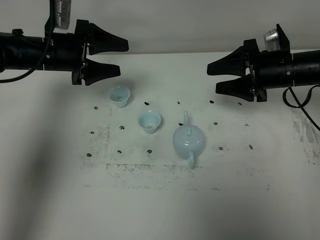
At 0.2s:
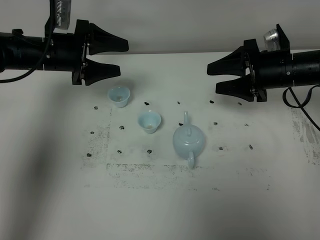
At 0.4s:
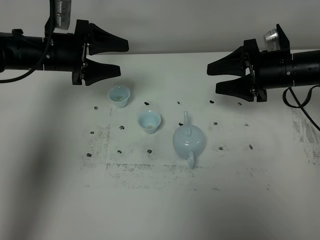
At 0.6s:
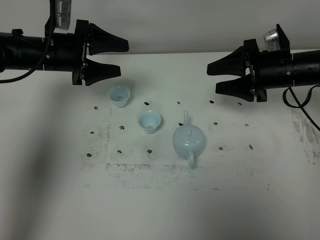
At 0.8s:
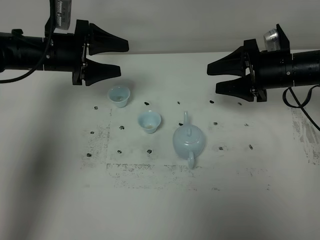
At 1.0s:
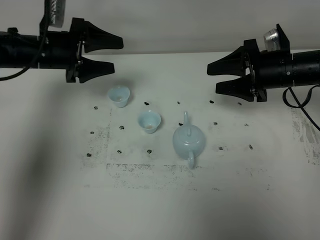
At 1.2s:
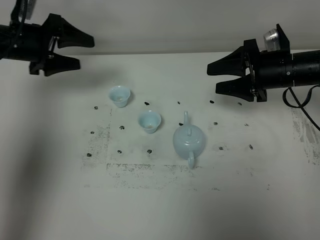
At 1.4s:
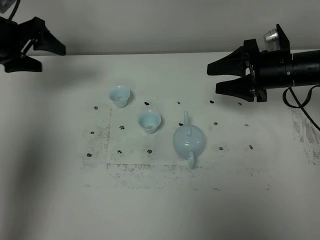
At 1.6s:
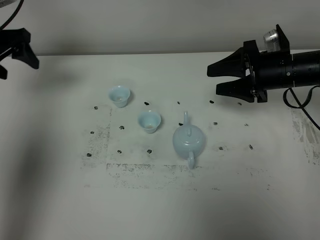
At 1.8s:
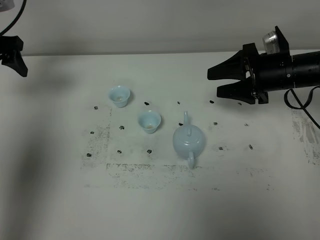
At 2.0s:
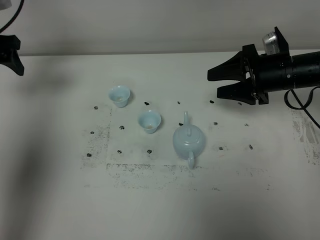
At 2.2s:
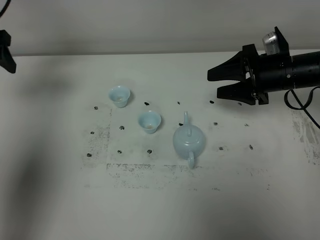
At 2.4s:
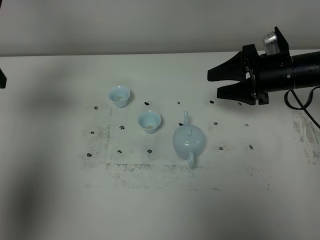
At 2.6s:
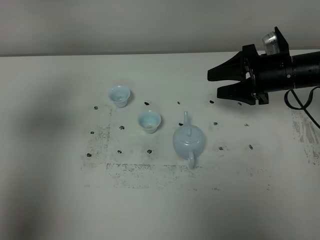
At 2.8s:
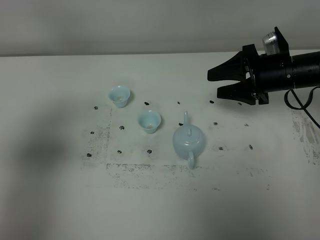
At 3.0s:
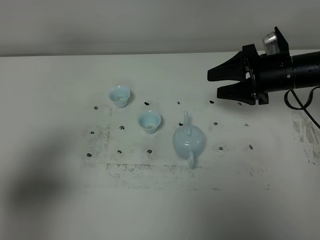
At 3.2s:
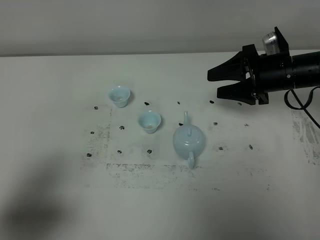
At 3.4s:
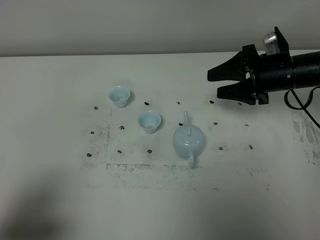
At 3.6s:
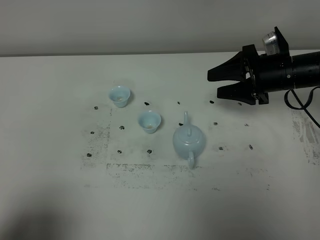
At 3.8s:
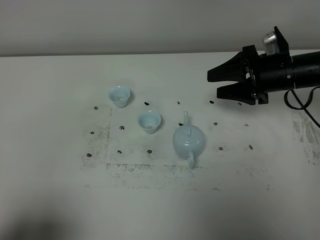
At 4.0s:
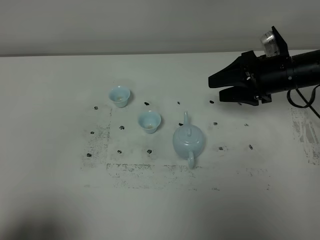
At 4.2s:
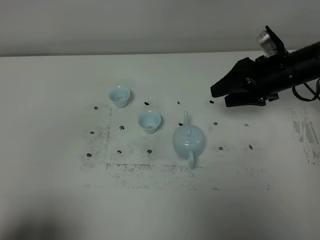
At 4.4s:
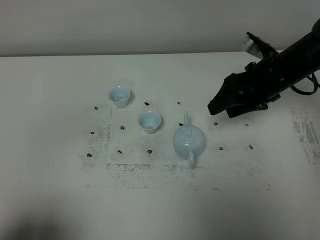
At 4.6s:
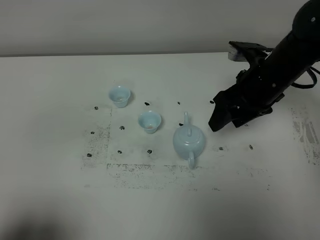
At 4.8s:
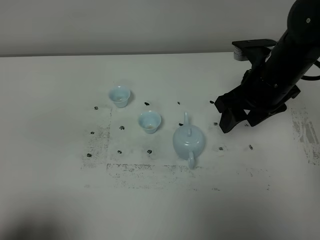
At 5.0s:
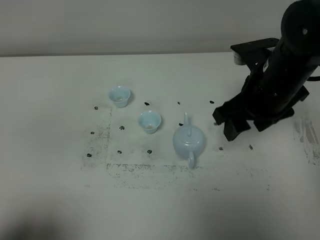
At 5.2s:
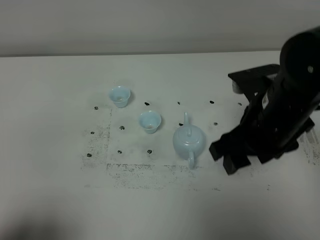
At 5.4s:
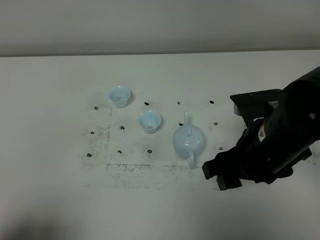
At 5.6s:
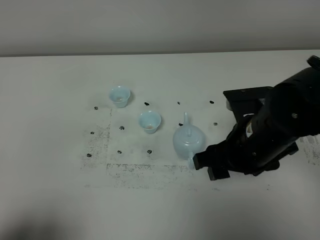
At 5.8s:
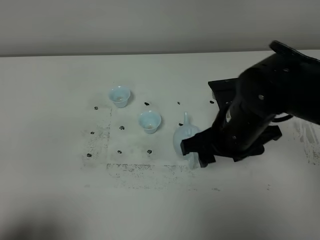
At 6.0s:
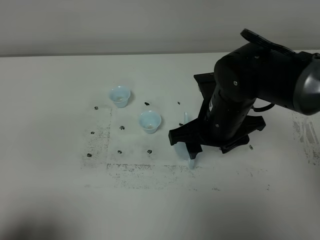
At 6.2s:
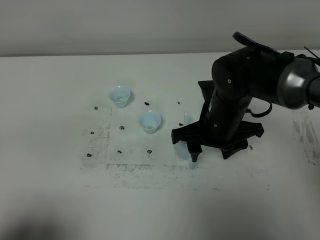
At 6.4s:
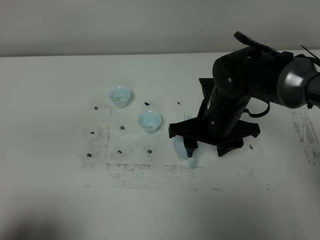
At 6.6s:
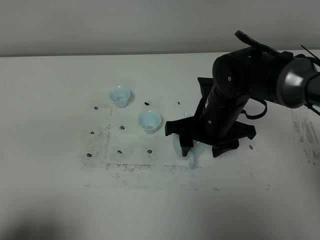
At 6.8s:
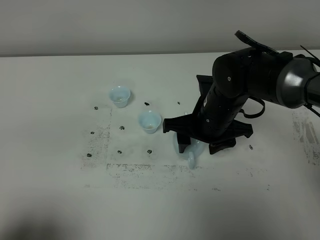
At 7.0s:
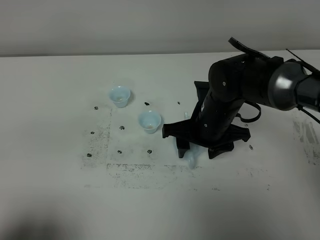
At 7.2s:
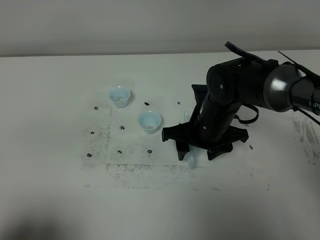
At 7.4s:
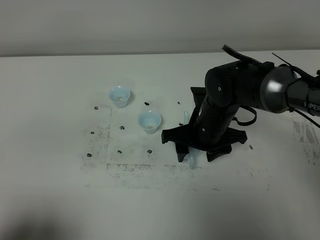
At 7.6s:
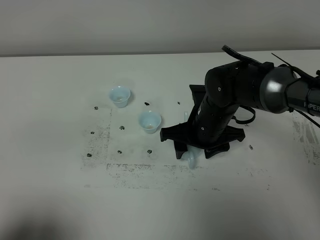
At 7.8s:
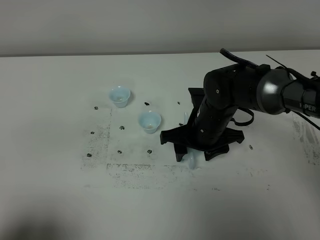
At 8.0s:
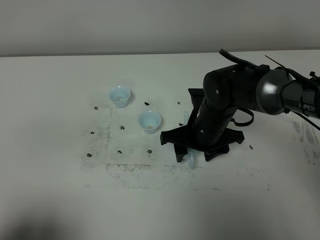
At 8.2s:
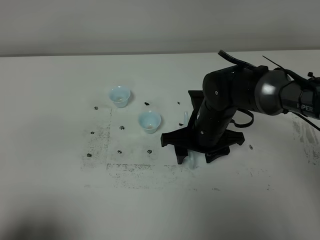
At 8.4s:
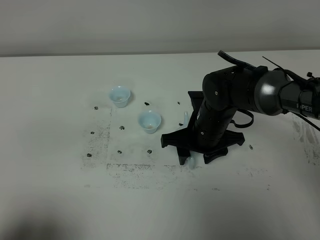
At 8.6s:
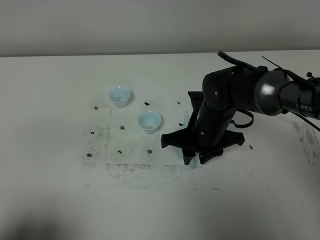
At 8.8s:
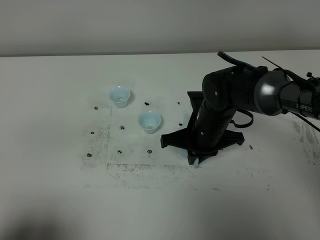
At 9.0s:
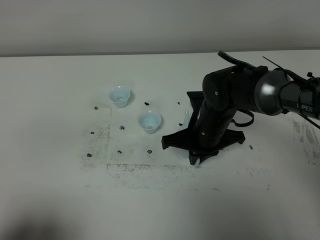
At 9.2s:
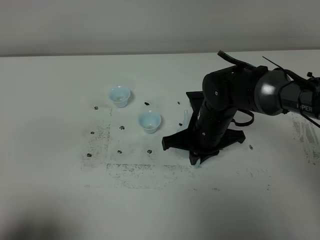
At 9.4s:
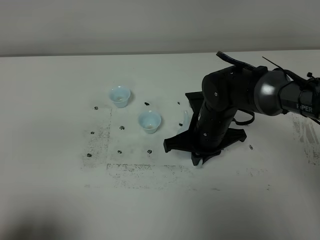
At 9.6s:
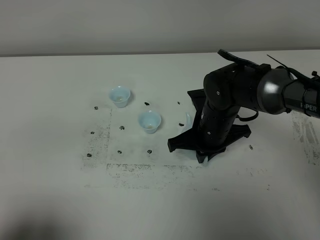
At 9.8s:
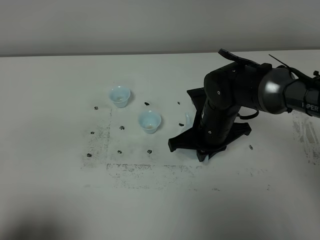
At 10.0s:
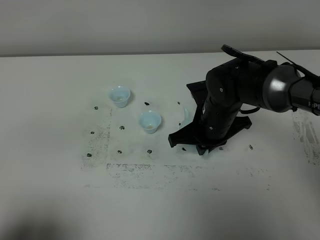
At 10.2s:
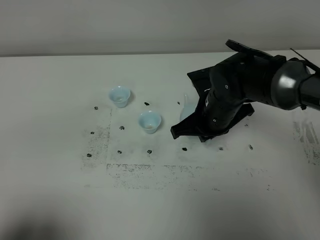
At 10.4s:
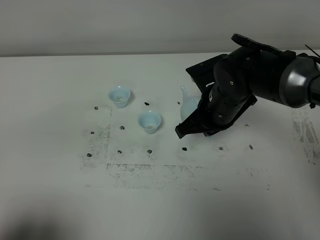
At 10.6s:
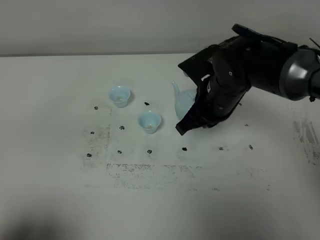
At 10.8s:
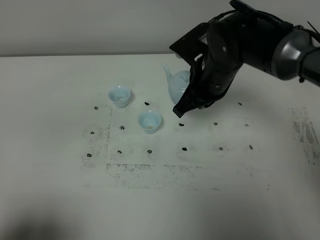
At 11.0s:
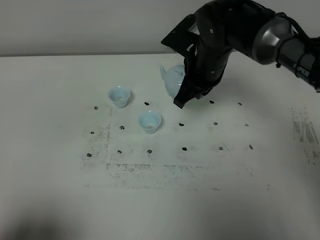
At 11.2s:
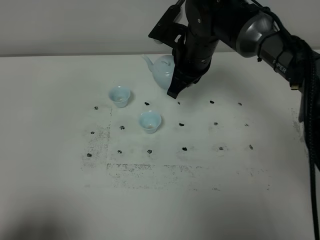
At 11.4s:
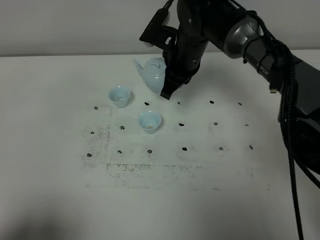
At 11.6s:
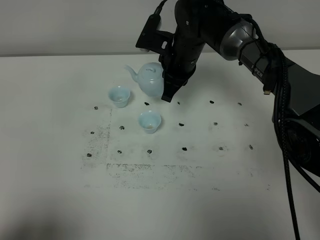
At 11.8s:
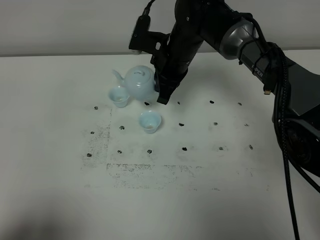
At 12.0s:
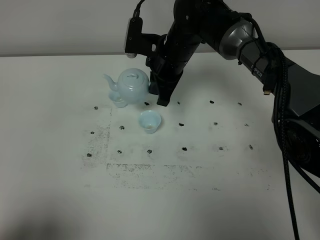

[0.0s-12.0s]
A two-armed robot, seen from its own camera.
Task of the whole recording: grasp the blue porcelain teapot and pour the tea into the two blue porcelain teacups one by one, put the blue porcelain teapot back in its original place.
Step, 0.0s to 10.0s: Pick up the teapot with the right gripper.
0.0s to 1.6s: The left gripper goes approximately 15 cm to the left and upward.
1.6s to 3.0s: The left gripper moves backward, about 30 cm.
3.0s to 4.4s: The left gripper travels backward by roughly 10 cm.
4.4s to 6.0s: The right gripper heads to the left and backward, covering roughly 15 cm.
6.0s to 7.6s: The right gripper goes roughly 5 cm downward.
7.6s to 9.0s: The right gripper closes its fingers.
9.0s to 10.4s: The right gripper shifts approximately 5 cm upward.
10.4s to 12.0s: The right gripper is displaced forward and to the left by roughly 15 cm.

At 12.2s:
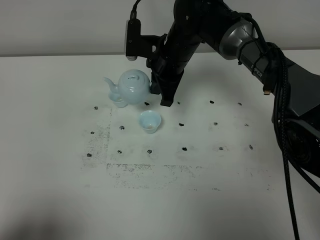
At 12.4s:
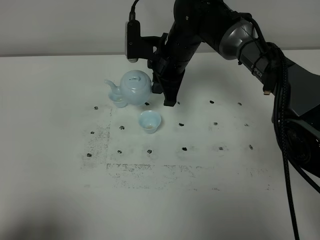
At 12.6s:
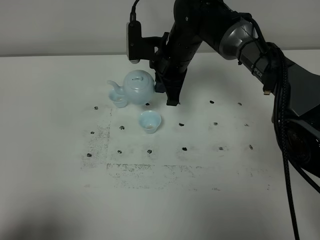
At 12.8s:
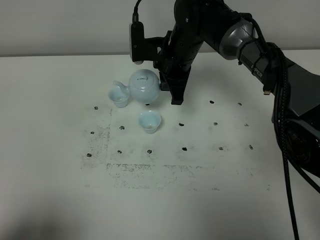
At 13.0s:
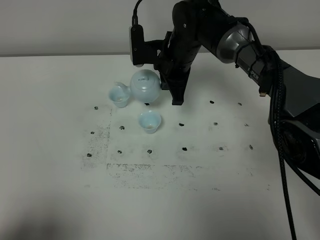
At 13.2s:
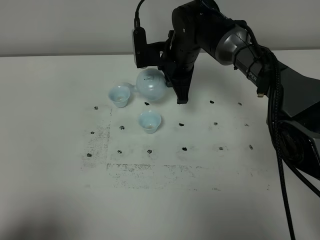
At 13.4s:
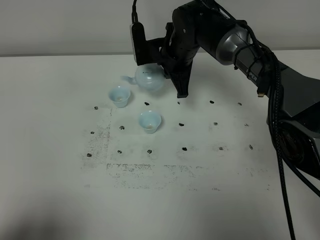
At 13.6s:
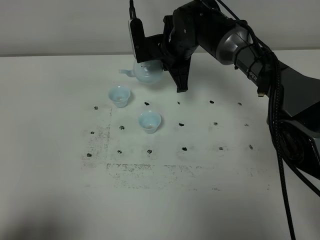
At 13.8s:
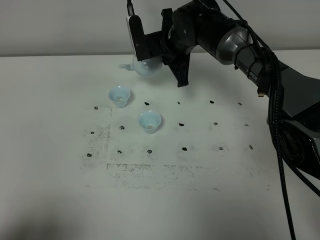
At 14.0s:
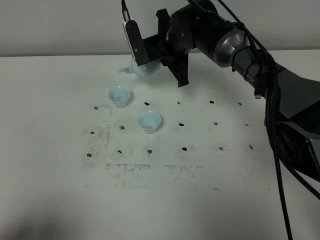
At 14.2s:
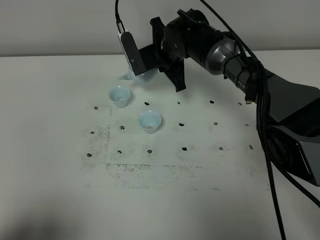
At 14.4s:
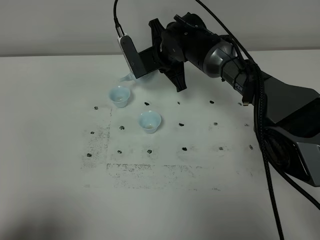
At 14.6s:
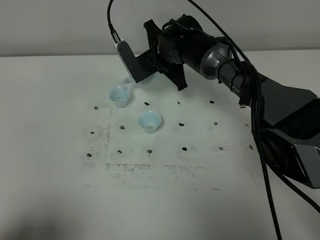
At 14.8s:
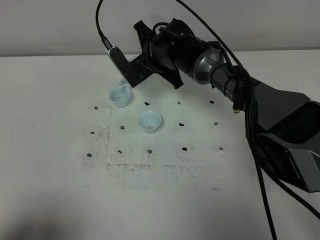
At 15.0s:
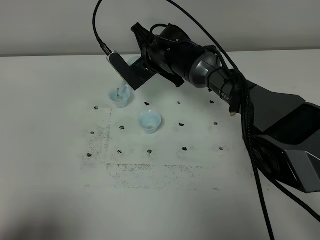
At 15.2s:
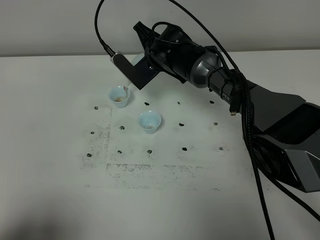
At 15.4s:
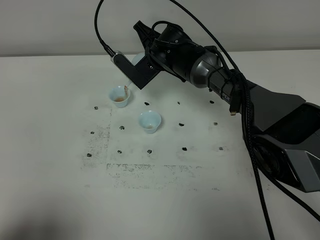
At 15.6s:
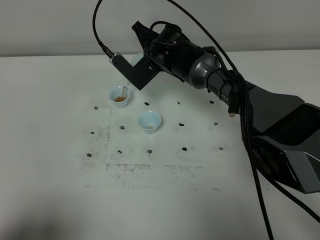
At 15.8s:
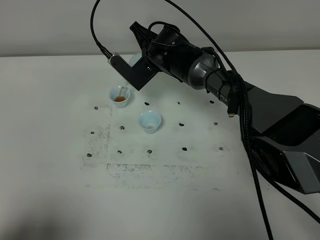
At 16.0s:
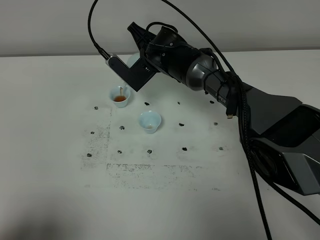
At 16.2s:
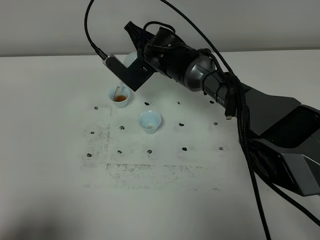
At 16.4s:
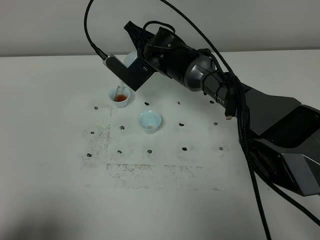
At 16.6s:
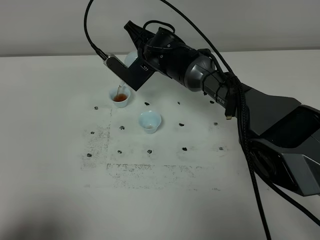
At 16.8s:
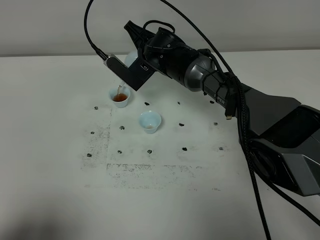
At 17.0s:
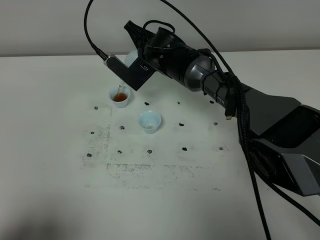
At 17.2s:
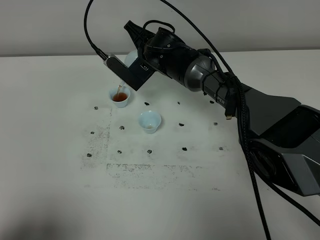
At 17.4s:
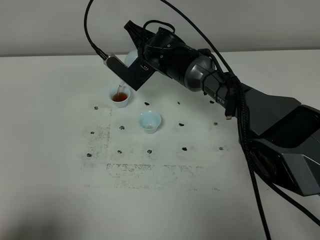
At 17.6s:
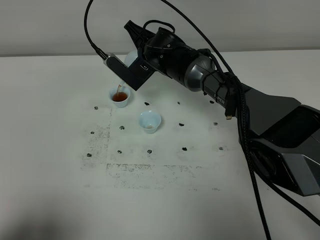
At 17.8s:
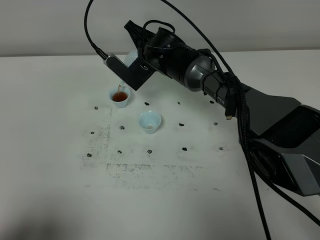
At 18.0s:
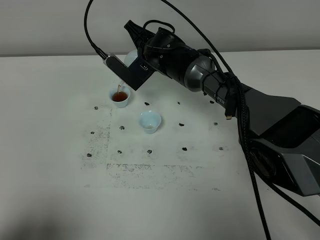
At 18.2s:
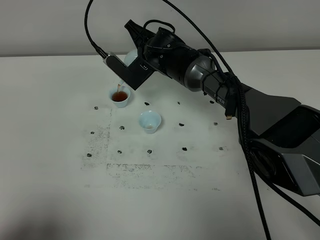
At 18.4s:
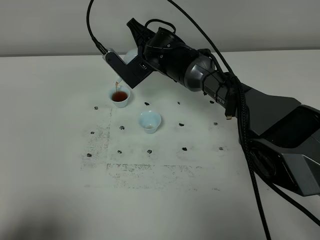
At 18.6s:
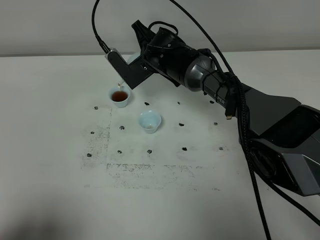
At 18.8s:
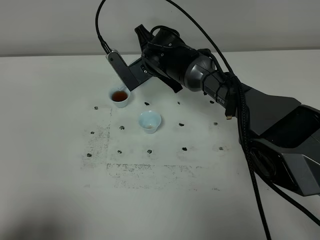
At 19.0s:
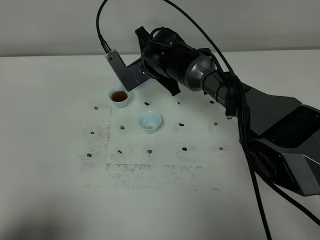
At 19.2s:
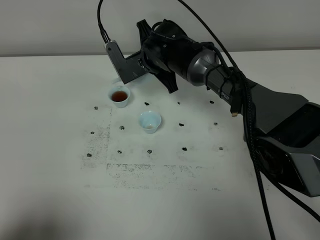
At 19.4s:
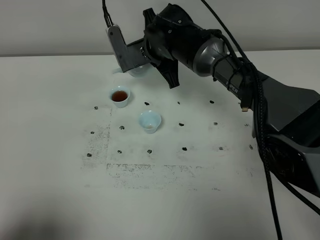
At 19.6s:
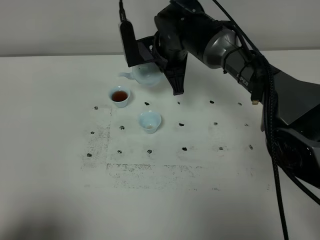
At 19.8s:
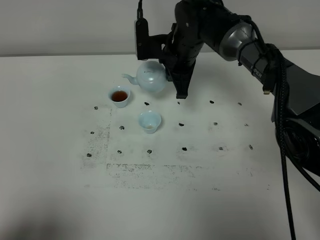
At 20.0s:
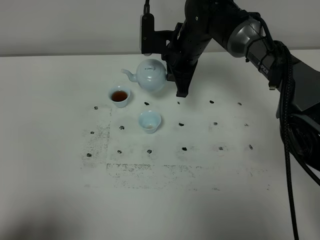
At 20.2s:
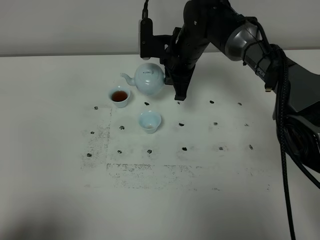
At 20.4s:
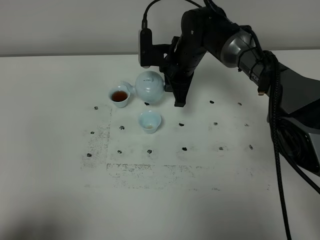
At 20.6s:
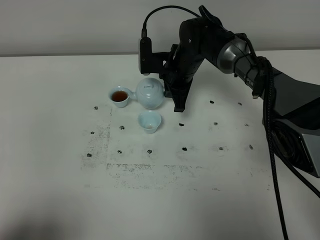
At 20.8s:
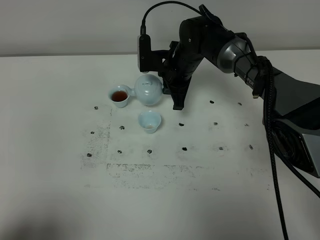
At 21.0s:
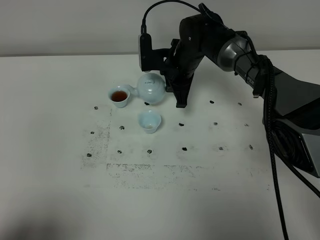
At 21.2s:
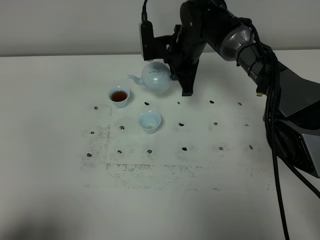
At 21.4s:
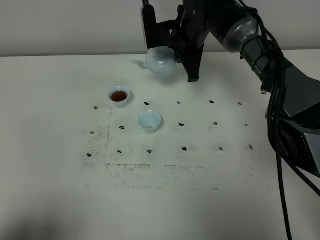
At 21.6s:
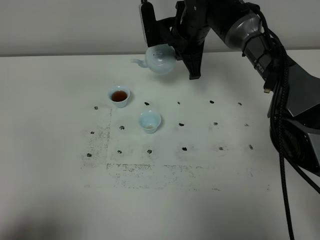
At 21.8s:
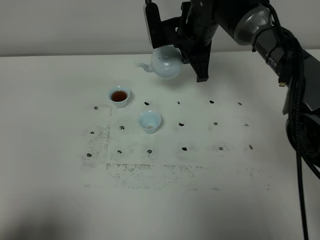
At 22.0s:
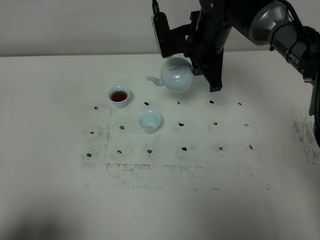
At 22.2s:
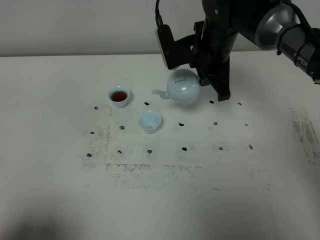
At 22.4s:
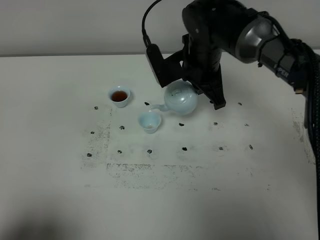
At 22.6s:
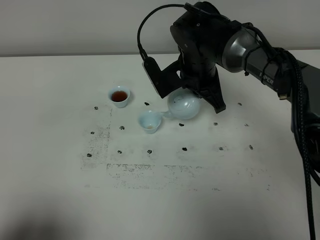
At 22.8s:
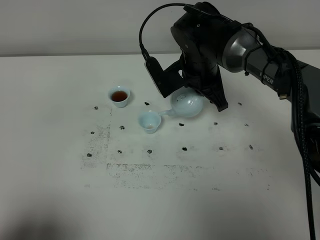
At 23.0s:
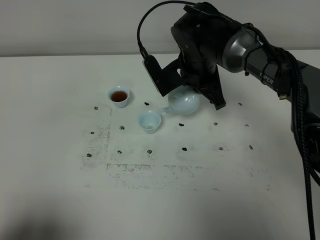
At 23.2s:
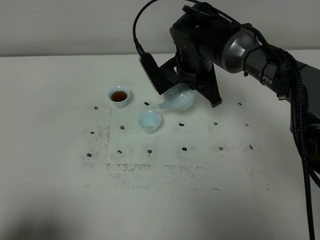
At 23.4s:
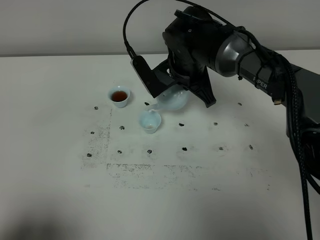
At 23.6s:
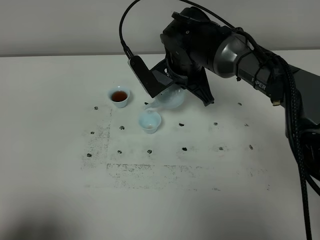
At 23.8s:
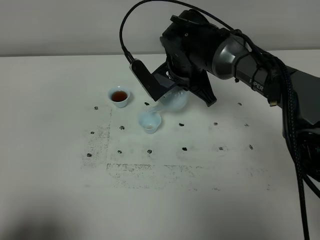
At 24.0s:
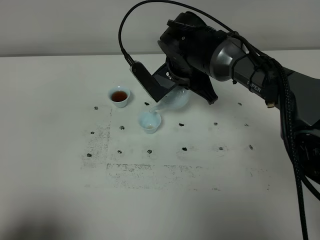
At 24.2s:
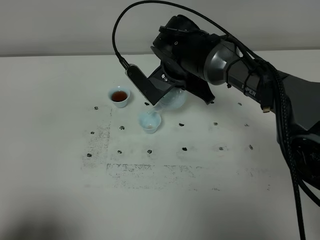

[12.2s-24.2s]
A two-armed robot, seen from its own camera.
Task of the whole recording: grasp the blue porcelain teapot and pour the tea into the two blue porcelain teacups one by one, put the blue porcelain teapot back in its original place.
15.2s to 16.6s: There are only small adjustments of the grippers.
16.6s to 18.2s: Neither gripper changes place.
18.2s to 19.8s: The right gripper heads to the right, covering roughly 5 cm.
19.8s to 21.2s: The grippers stay close to where they were, moving slightly.
21.2s to 22.6s: The right gripper heads backward, covering approximately 5 cm.
22.6s to 24.2s: The grippers move only a little.
